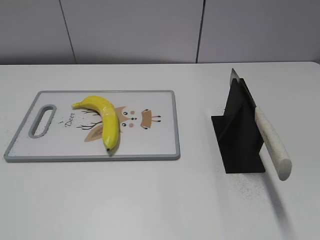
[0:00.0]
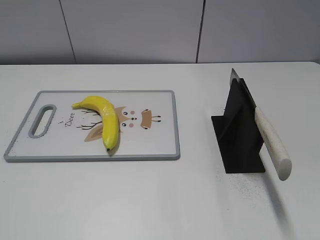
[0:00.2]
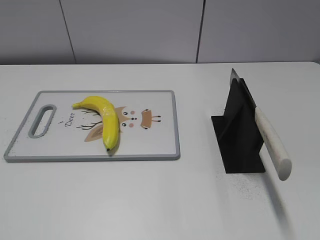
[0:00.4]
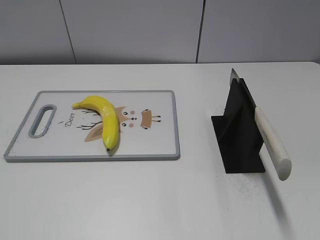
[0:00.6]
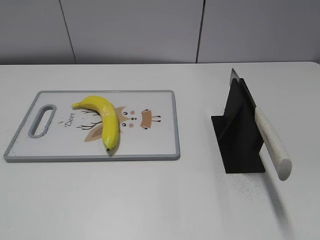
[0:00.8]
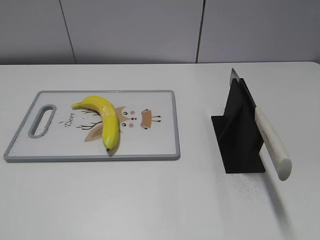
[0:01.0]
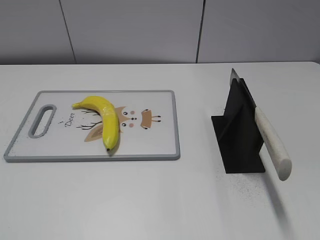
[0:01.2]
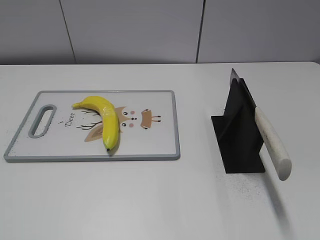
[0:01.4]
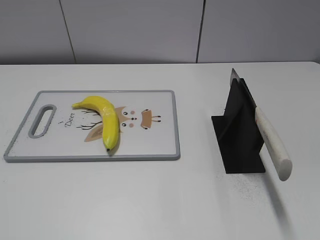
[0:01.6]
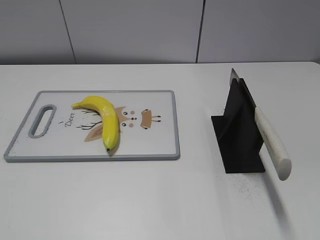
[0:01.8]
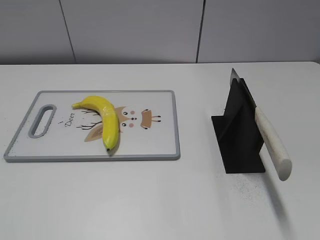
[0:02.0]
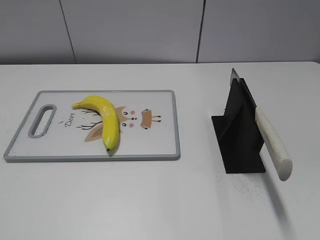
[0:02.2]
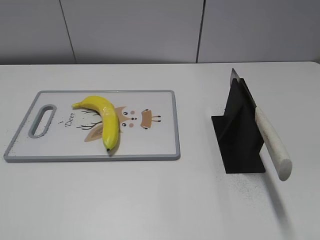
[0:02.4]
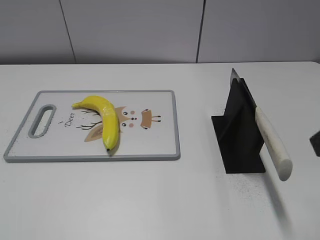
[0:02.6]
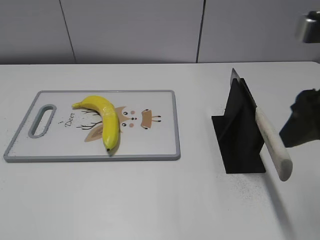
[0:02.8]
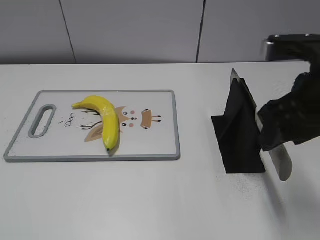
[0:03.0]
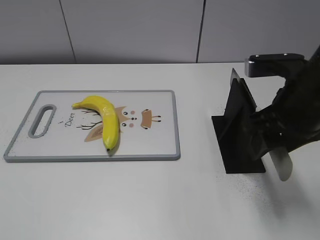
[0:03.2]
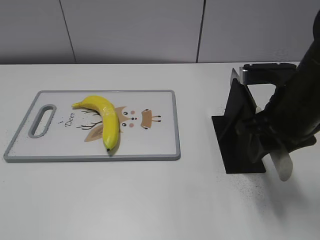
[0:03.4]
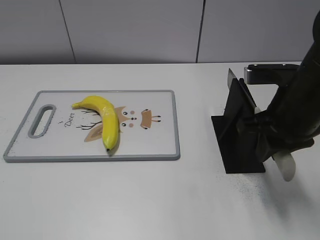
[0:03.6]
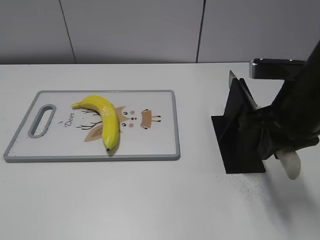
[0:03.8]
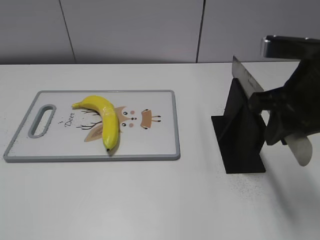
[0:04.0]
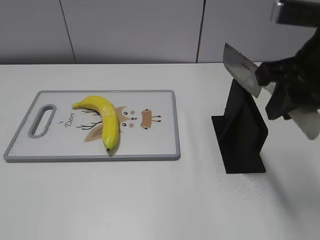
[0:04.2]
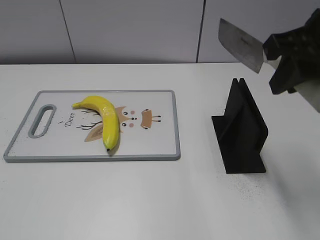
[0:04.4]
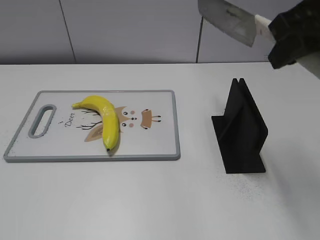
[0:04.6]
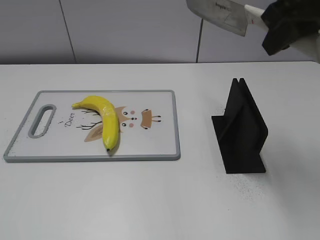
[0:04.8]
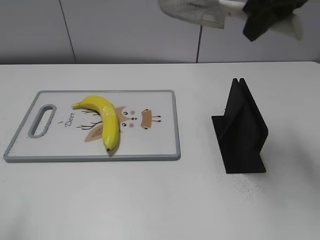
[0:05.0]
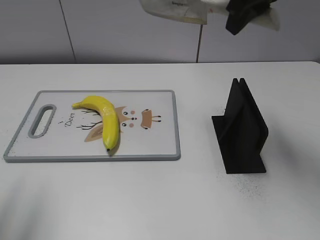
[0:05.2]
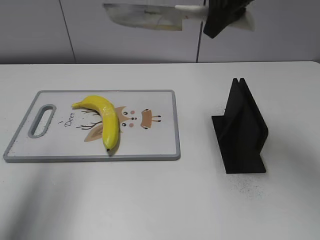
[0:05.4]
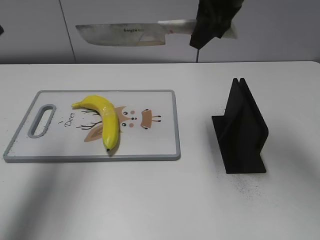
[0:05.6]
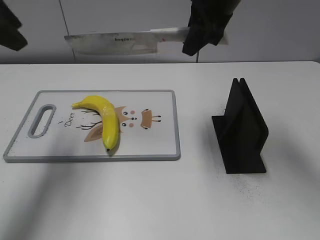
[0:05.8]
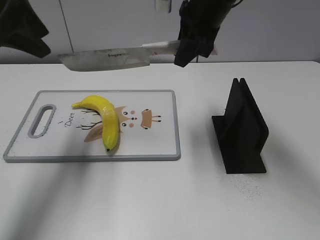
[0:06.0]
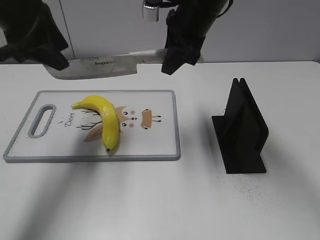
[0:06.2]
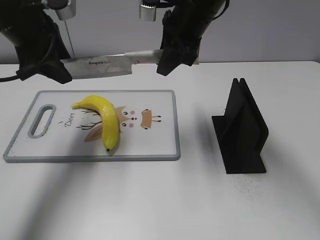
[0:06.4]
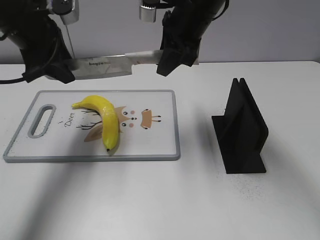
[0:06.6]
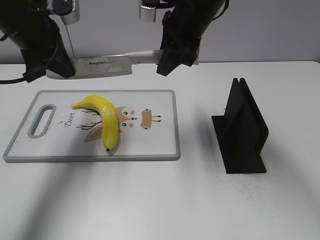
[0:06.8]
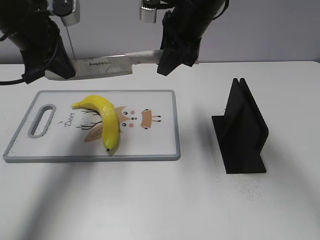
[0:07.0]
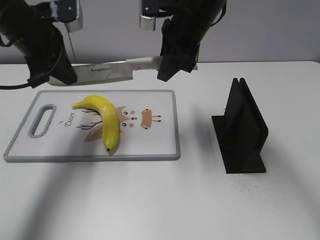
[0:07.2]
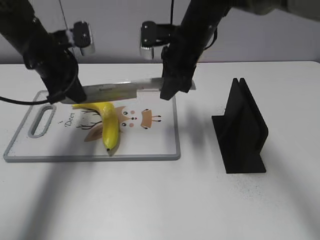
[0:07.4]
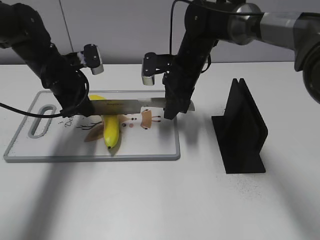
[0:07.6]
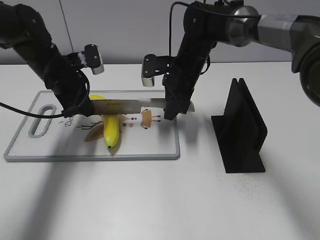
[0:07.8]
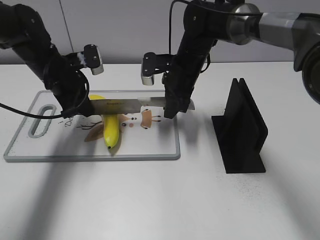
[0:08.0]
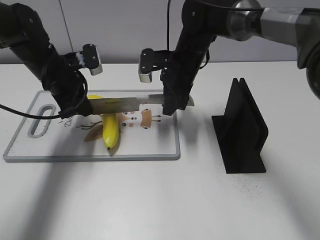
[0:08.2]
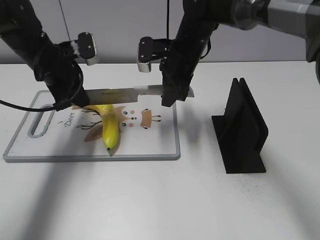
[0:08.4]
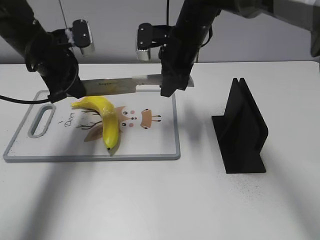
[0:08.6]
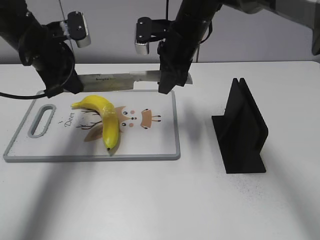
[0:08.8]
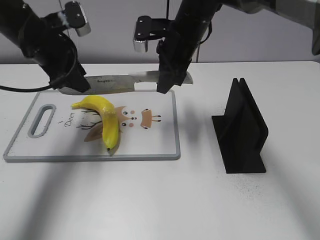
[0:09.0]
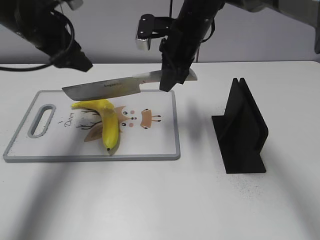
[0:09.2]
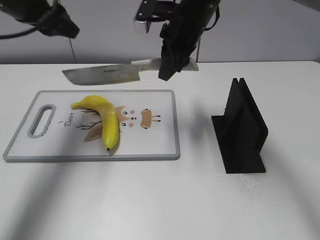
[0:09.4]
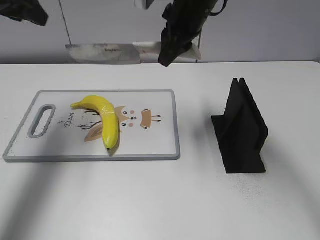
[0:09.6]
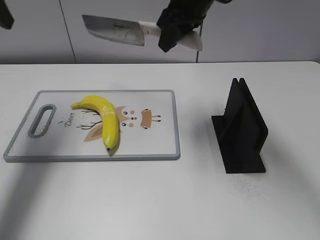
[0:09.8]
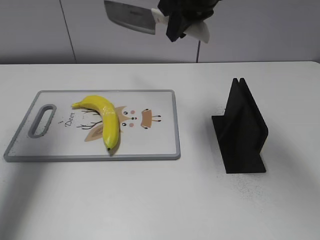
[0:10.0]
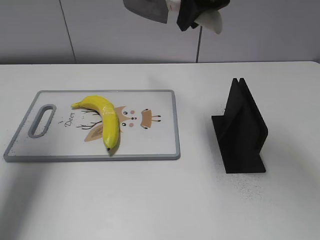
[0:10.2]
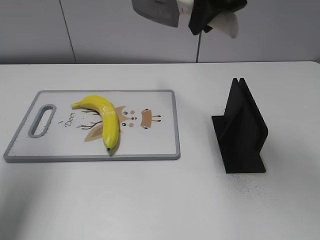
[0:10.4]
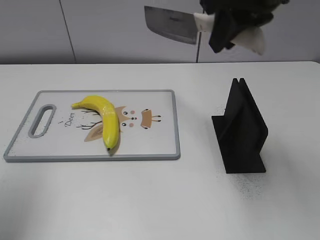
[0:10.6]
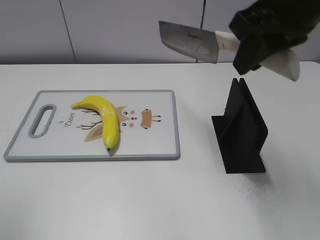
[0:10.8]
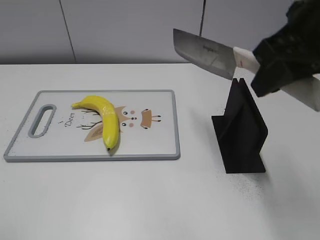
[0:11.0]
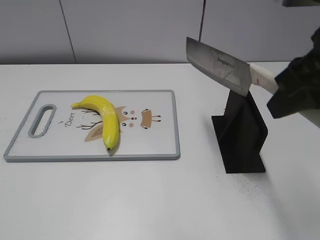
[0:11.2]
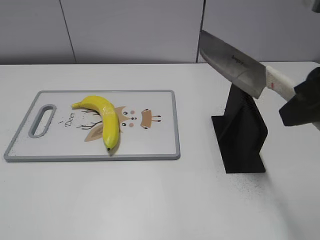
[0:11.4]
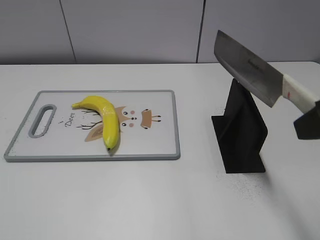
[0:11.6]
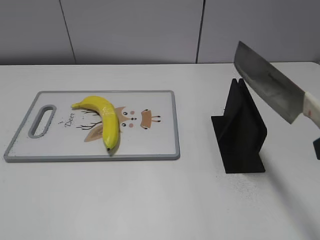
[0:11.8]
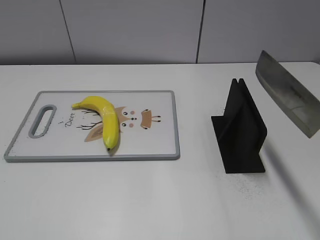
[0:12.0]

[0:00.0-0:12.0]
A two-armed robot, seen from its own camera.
Task of the whole recording: cut plastic banana.
Step, 0:00.0 to 0:04.4: Grab the knife handle with your right hand.
Step, 0:04.8 to 0:08.4: Lift the knife with your right hand.
Step, 0:08.8 to 0:09.4: Cut the banana with your right hand.
Step, 0:09.6 to 0:11.0: Lift the knife with your right hand.
0:01.6 to 0:03.0: The right gripper travels forward by about 25 cm.
0:03.0 to 0:04.4: The right gripper heads upward, covering approximately 5 cm, and closes its fingers.
0:04.4 to 0:06.0: The left gripper goes roughly 35 cm forward. Meanwhile the right gripper moves forward and to the left, approximately 20 cm.
0:06.0 to 0:07.6: The grippers both shift downward by approximately 15 cm. The left gripper closes.
0:07.6 to 0:09.0: The two grippers go some 10 cm upward. The left gripper opens up.
0:09.0 to 0:10.4: The right gripper moves upward and backward, approximately 15 cm, while the left gripper shifts roughly 20 cm upward, backward and to the left.
0:10.4 to 0:12.0: The right gripper travels backward and to the right by approximately 25 cm. Meanwhile the left gripper shifts about 30 cm backward.

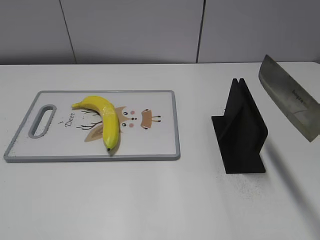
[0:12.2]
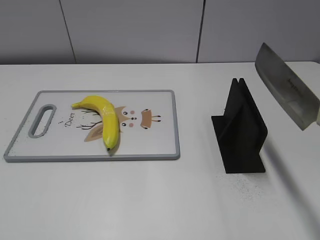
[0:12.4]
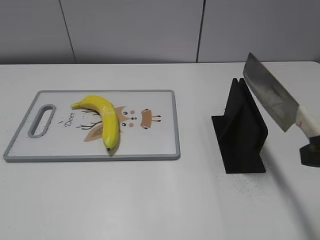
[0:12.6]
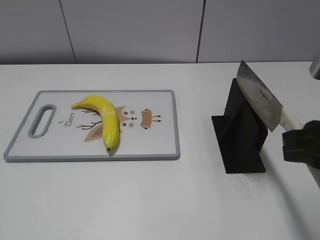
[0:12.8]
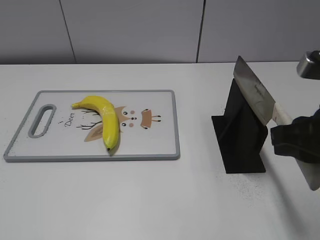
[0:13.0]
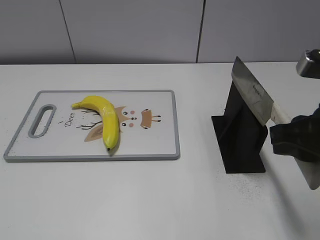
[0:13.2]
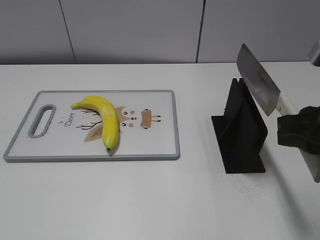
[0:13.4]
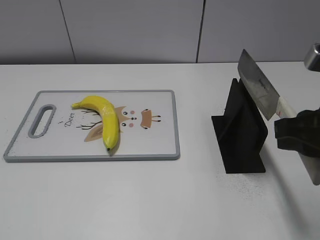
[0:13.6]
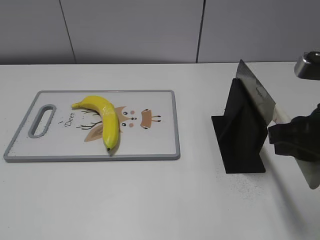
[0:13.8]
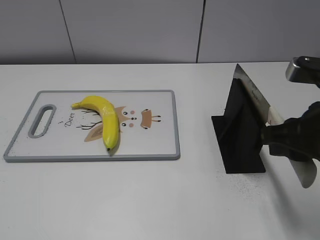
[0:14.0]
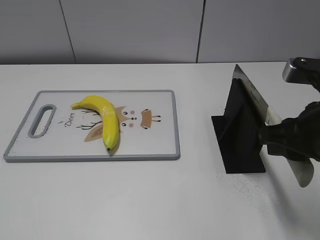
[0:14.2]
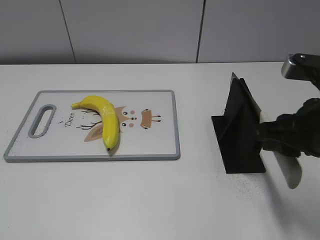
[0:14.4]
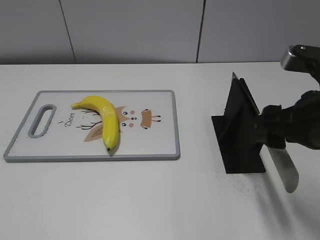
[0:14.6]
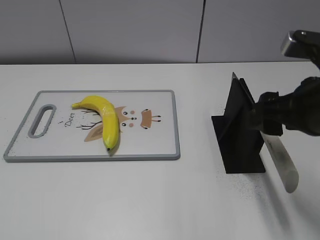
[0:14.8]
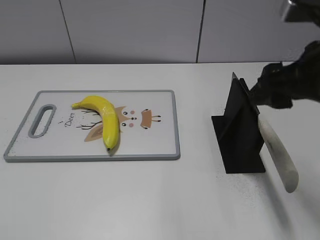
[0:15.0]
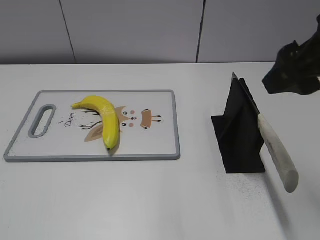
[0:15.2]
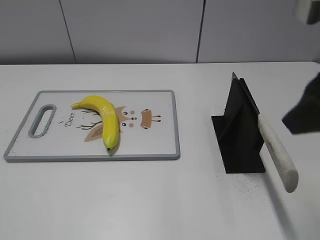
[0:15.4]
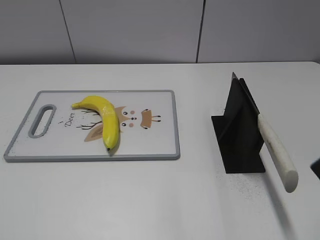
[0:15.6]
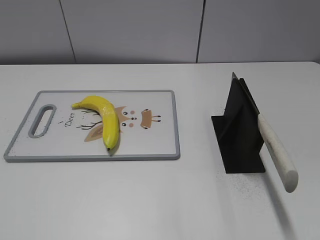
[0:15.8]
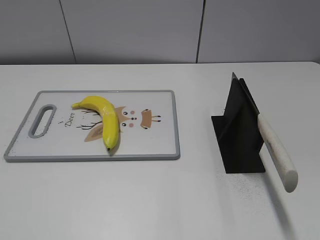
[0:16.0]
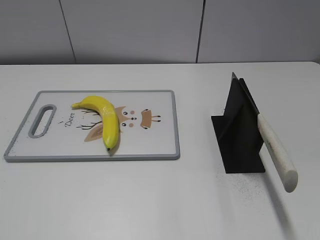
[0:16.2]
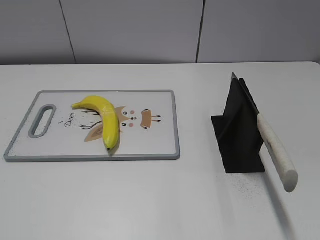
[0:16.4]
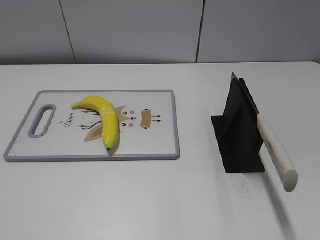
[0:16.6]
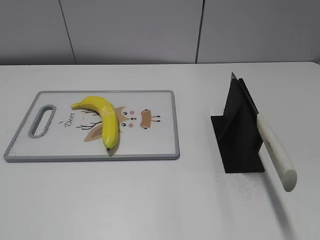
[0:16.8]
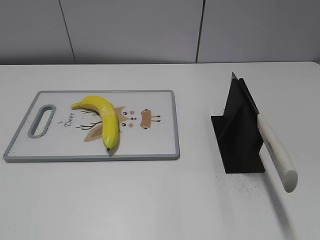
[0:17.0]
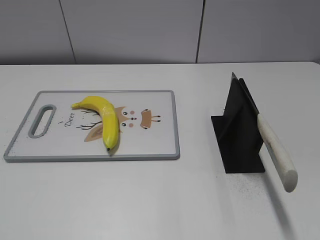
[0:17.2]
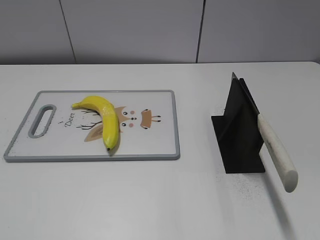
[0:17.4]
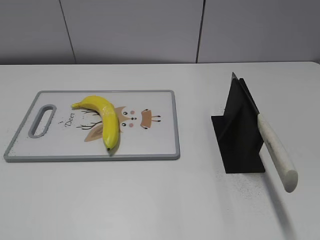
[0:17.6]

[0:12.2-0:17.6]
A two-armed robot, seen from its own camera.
Task of the whole recording: cut plastic banana.
Step, 0:12.2 to 0:17.6: Place the knife on the storage rack with your right hand.
0:12.2 to 0:13.6: The right gripper shifts about 5 cm forward.
0:13.6 to 0:15.0: The right gripper ends up some 5 cm from where it was, and opens.
0:15.0 to 0:16.2: The right gripper moves backward and to the right, approximately 20 cm.

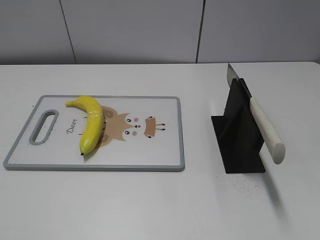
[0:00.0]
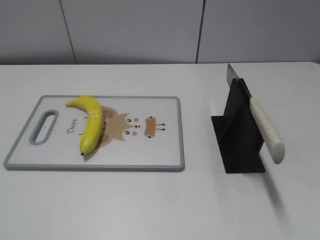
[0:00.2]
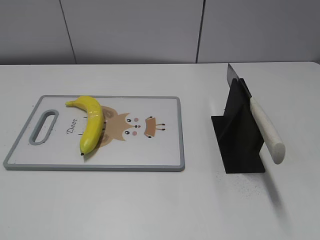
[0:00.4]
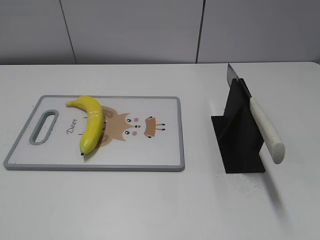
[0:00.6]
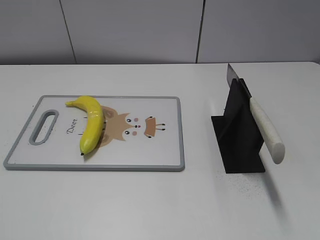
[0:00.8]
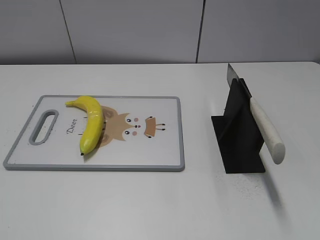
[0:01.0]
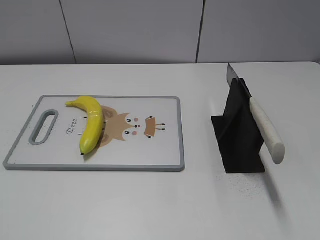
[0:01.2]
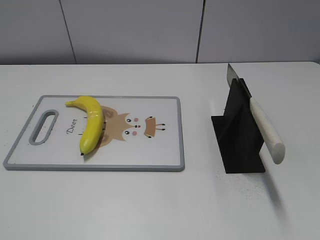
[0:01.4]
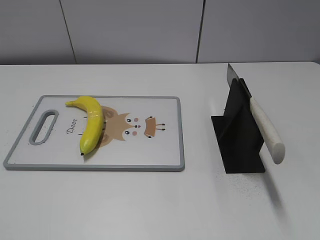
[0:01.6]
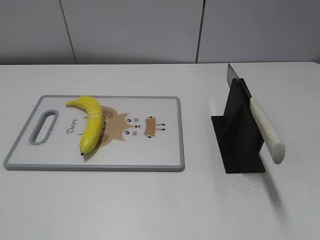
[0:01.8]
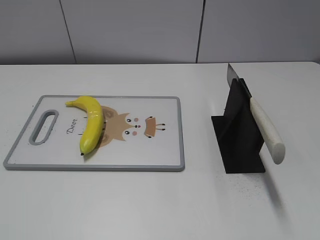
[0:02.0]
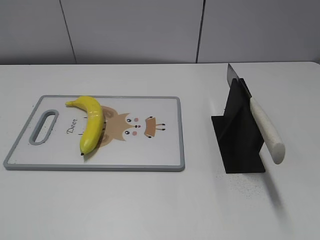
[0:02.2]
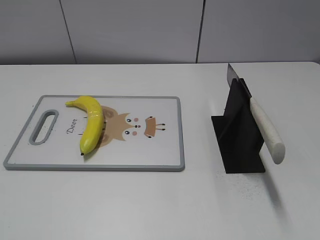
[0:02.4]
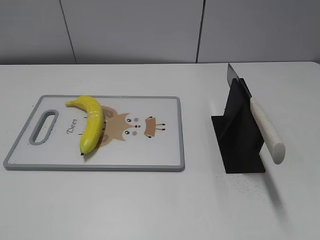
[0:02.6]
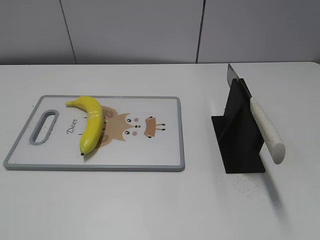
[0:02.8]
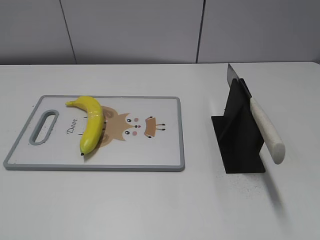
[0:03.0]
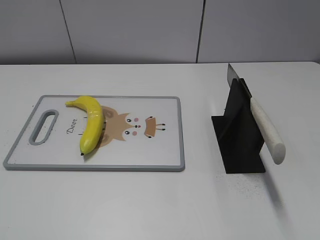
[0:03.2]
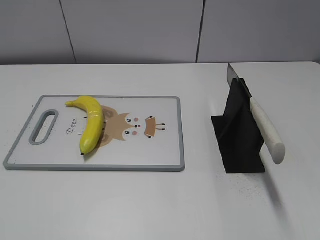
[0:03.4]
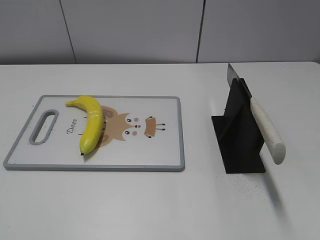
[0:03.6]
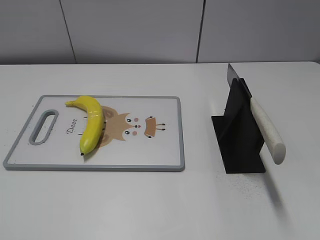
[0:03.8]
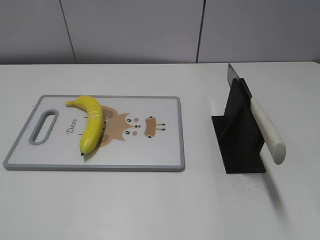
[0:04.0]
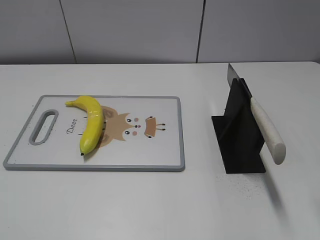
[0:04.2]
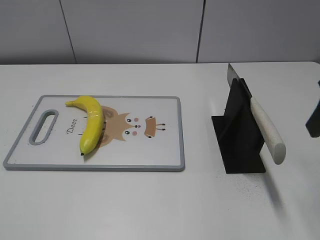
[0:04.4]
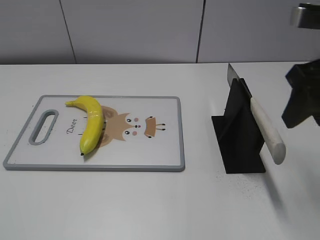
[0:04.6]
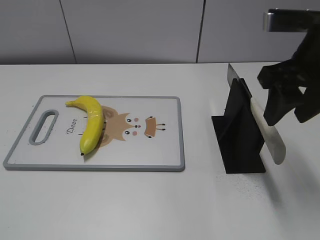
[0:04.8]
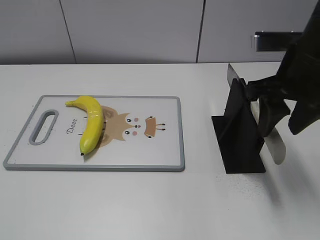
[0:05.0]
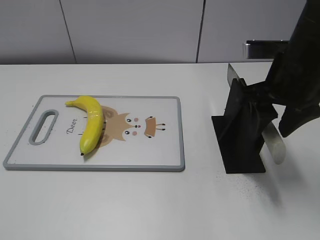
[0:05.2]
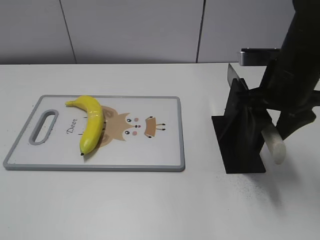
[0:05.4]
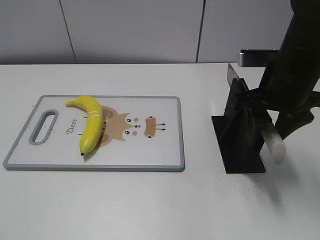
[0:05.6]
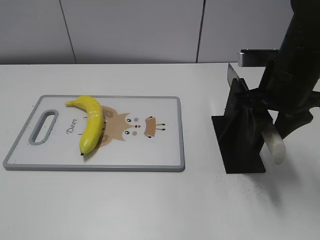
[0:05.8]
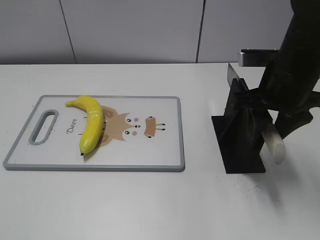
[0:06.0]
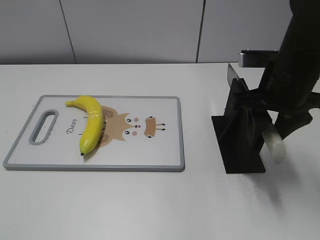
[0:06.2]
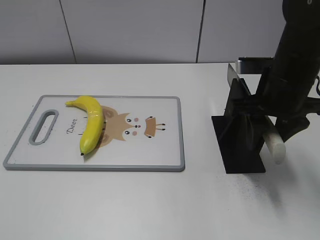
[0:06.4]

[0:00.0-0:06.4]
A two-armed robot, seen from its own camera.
Task of the whole recording: cut plastic banana.
0:03.2 to 0:04.8: The right gripper moves forward and to the left, approximately 20 cm.
0:04.8 to 0:06.4: The right gripper moves downward, approximately 10 cm.
